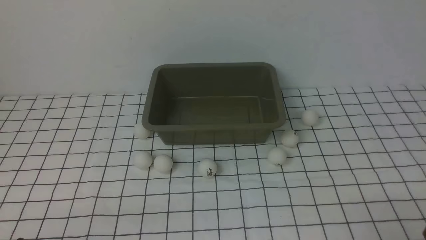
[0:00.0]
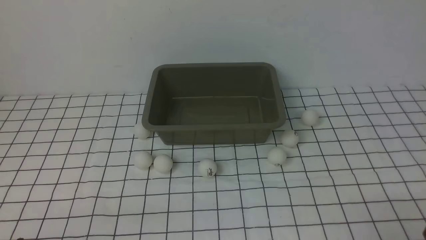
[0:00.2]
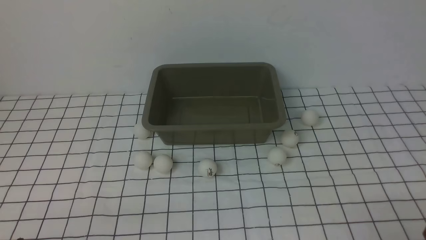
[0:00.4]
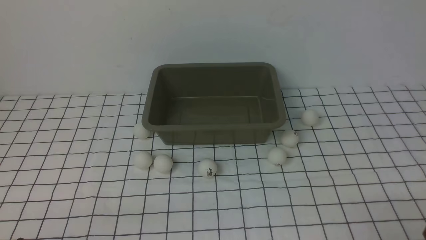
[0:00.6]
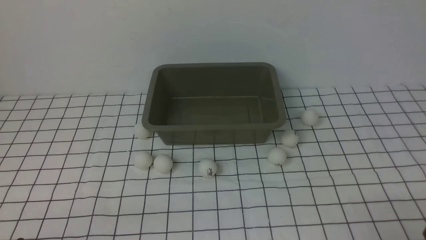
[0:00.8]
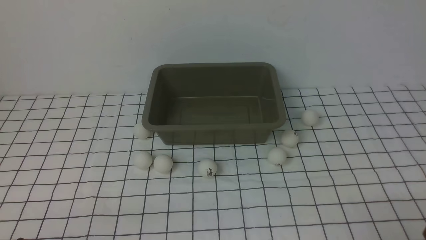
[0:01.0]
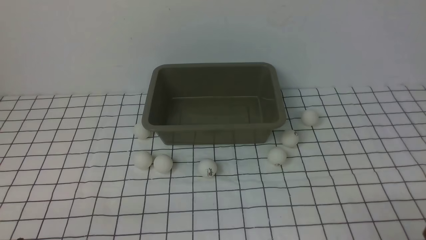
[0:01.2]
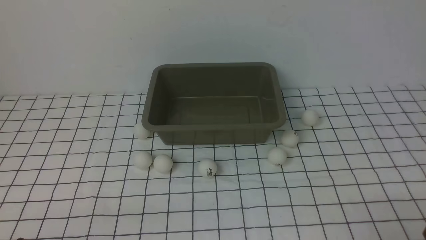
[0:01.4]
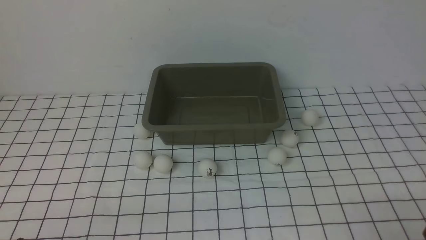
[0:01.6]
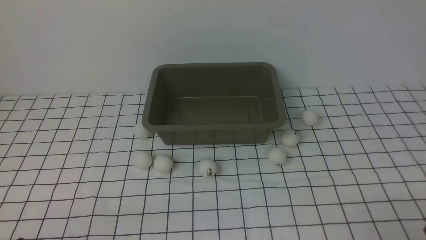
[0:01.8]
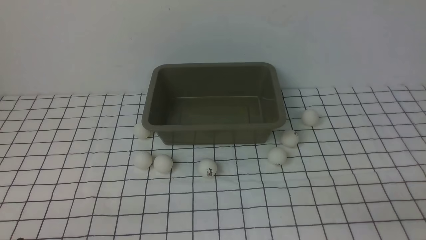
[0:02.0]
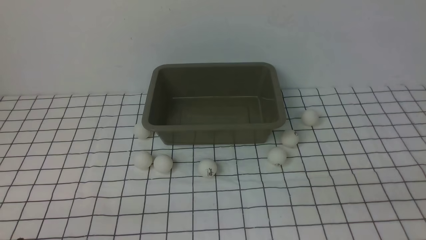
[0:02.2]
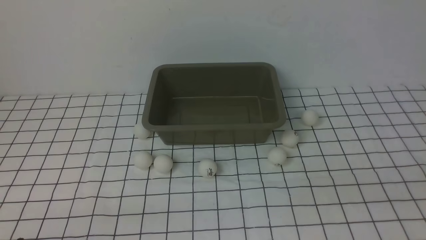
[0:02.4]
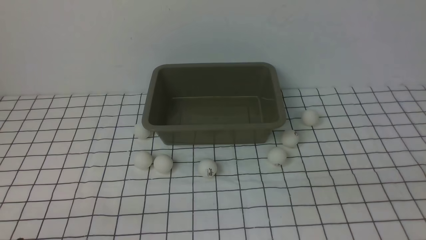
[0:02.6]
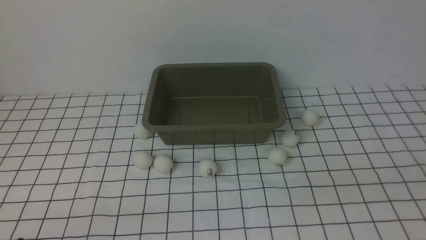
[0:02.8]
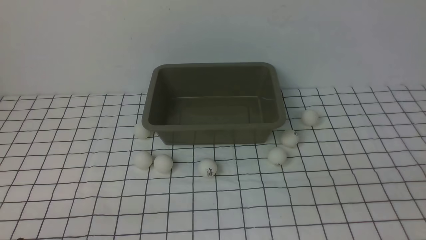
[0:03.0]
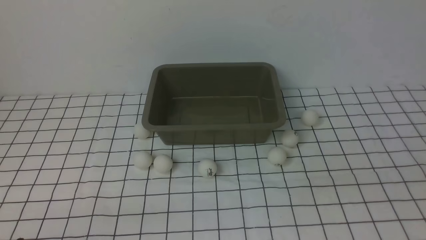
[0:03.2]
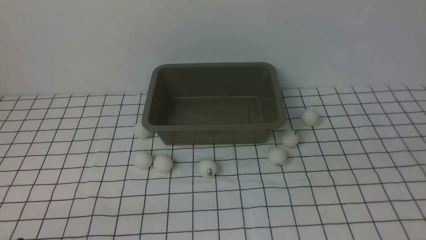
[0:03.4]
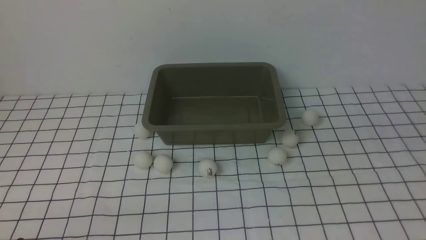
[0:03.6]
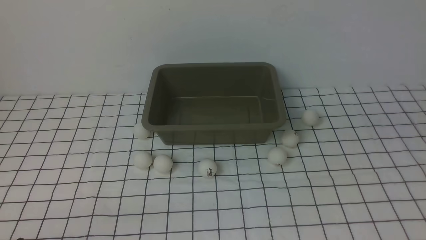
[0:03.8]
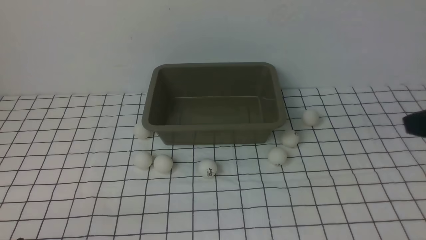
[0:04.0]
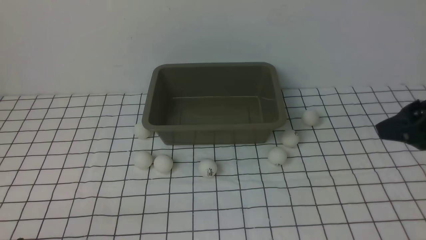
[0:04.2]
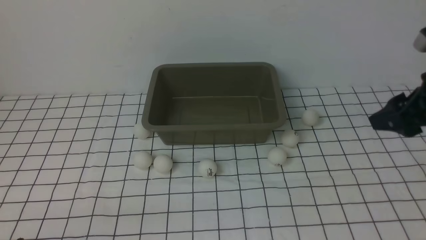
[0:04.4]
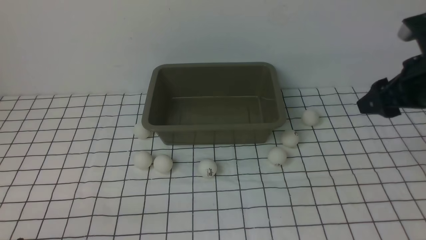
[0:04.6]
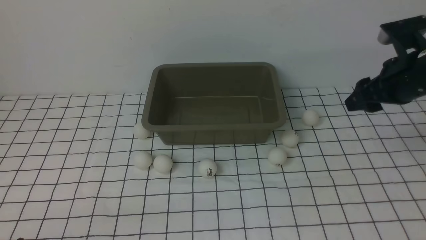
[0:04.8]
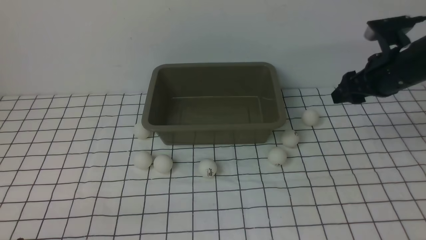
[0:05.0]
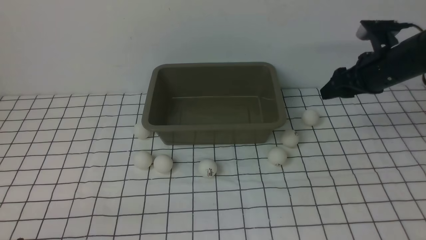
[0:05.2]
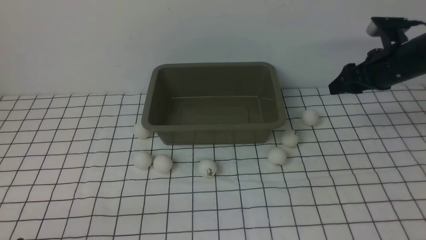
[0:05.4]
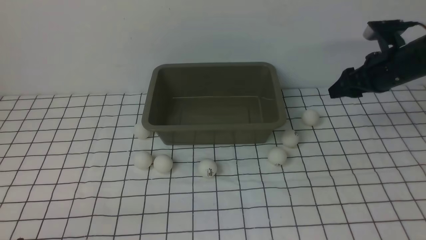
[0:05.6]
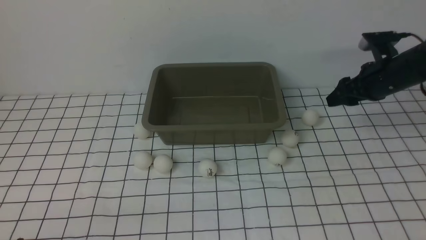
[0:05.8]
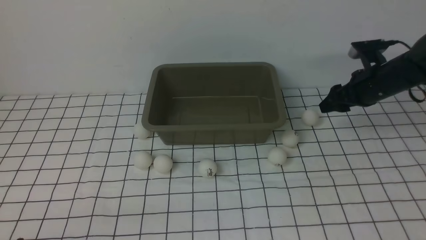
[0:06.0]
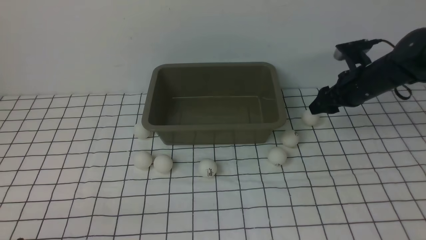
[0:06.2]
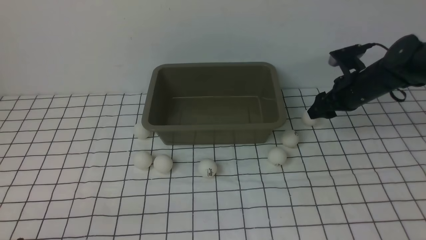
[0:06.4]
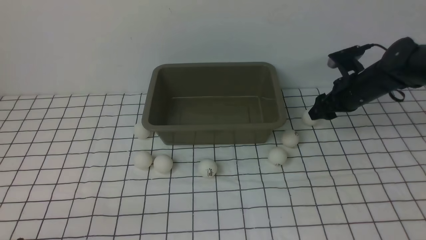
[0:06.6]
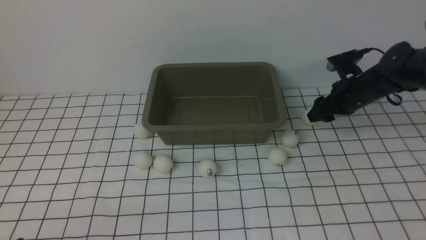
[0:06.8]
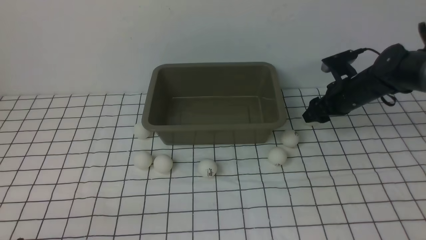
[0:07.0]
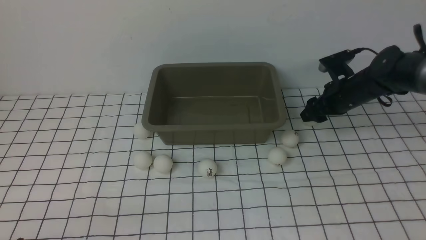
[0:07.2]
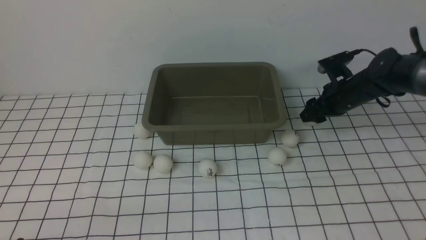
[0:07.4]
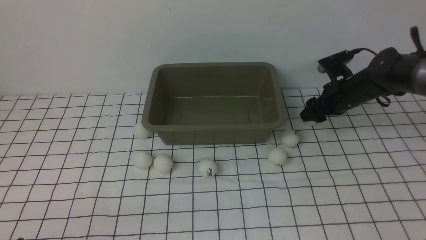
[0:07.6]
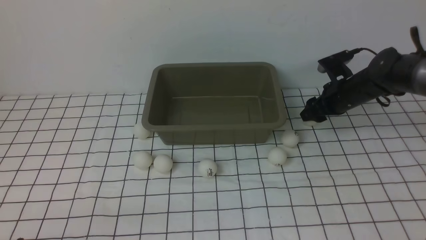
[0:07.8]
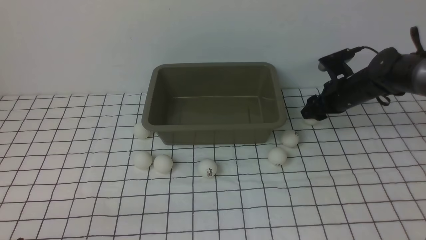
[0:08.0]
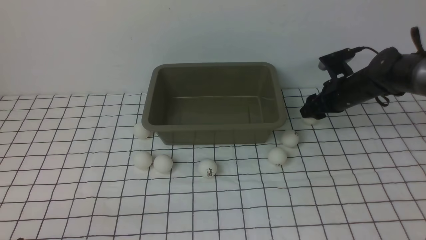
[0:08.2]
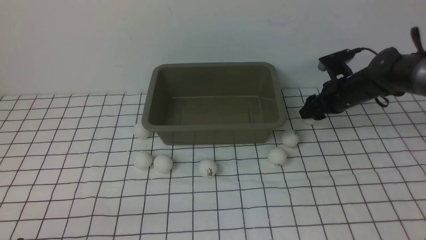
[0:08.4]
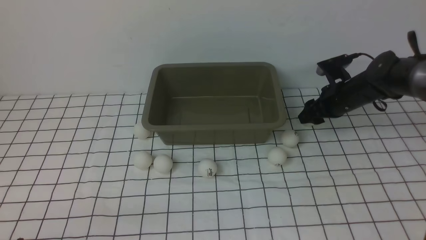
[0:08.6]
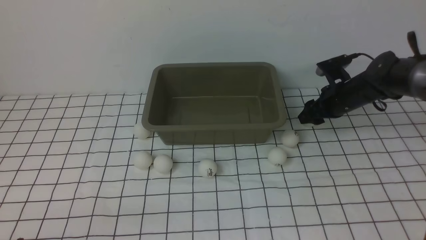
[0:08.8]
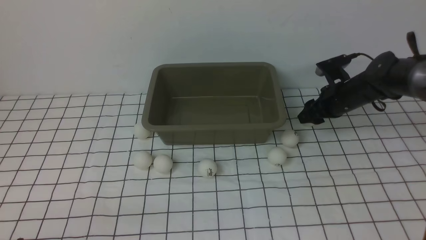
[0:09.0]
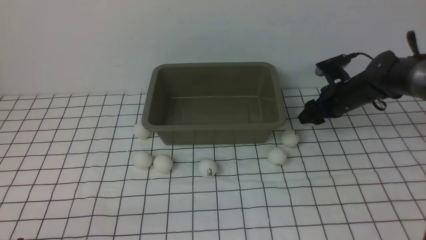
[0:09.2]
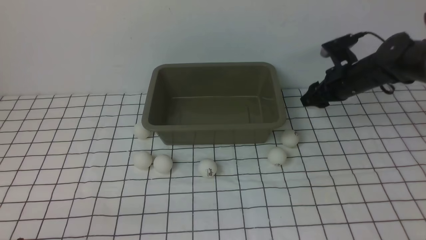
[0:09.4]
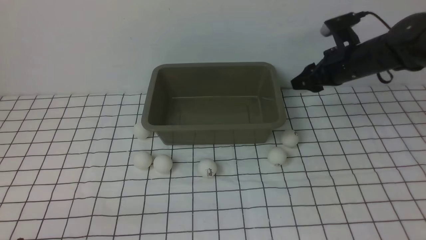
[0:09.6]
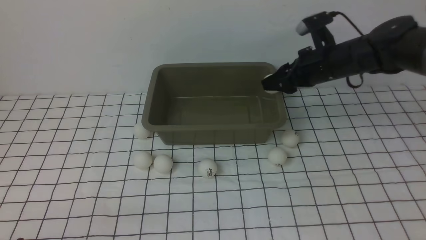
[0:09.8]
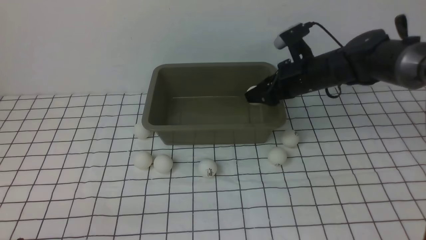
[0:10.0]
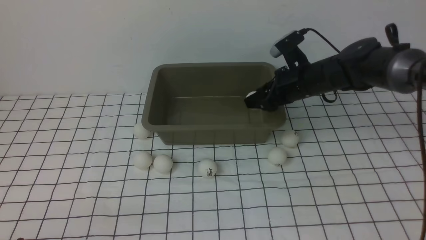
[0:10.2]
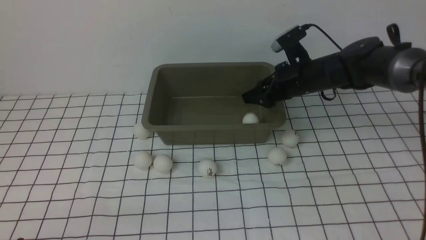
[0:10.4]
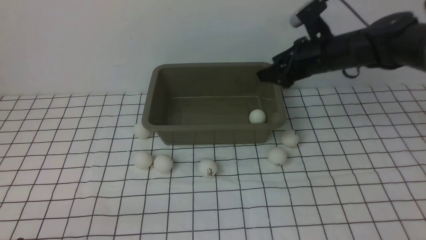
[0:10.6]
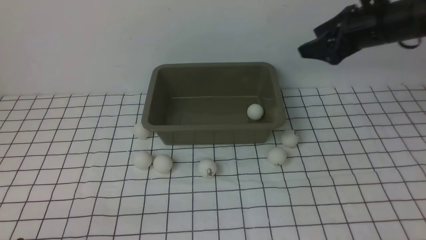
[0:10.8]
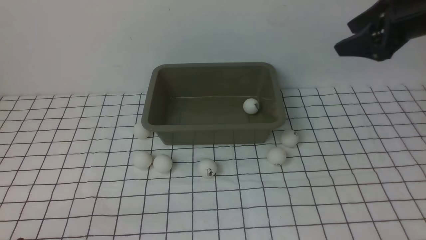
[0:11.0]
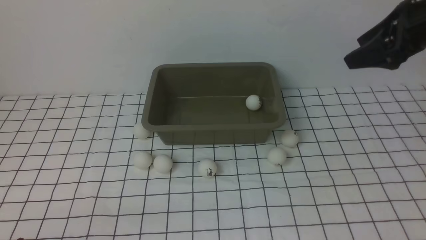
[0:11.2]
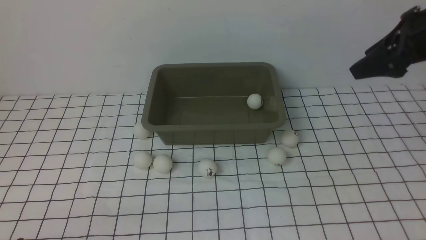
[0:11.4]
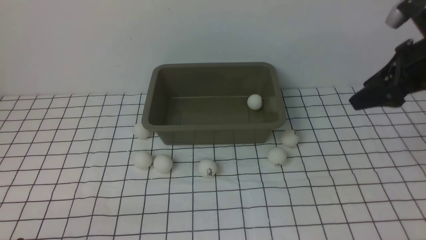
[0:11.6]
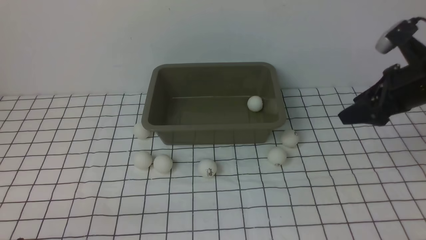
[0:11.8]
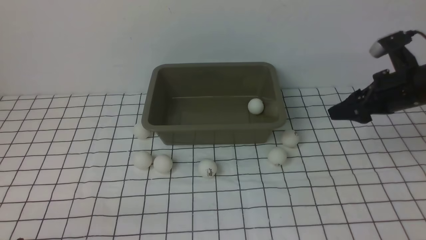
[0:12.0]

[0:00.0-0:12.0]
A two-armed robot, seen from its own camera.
Step, 0:00.0 to 0:09.4: use the right arm to clamp the table tennis ball closest to it.
Step, 0:09.6 to 0:10.4: use the right arm to put the table tennis ball into the box.
0:00.0 to 0:01.6: Both grippers stay about where they are.
0:03.0 to 0:04.4: The right gripper heads forward, covering roughly 25 cm, and closes up.
0:04.4 to 0:06.0: The right gripper is displaced forward and downward by approximately 20 cm.
0:06.0 to 0:07.6: The right gripper is displaced downward by about 5 cm.
0:07.6 to 0:09.0: Both grippers stay about where they are.
0:09.0 to 0:10.4: The right gripper is displaced upward and to the left by approximately 10 cm, and opens.
0:10.4 to 0:12.0: The right gripper is displaced to the right and backward by some 10 cm, and travels upward and back again, about 10 cm each way.

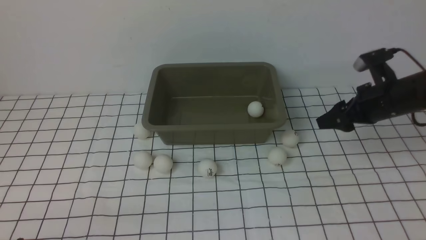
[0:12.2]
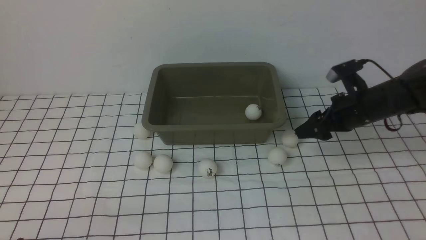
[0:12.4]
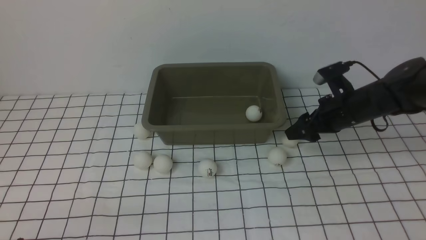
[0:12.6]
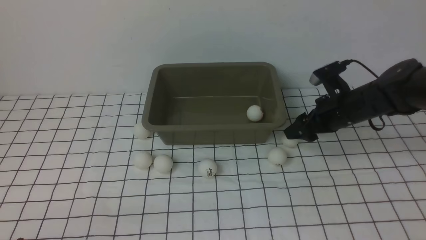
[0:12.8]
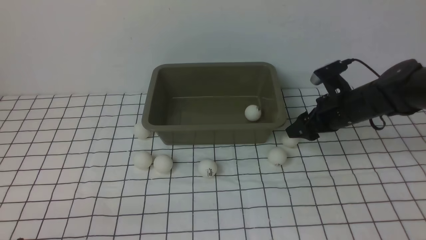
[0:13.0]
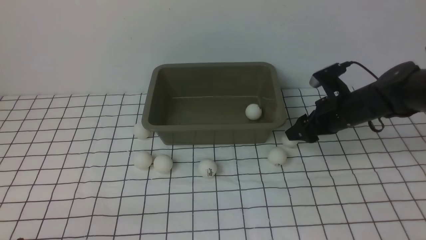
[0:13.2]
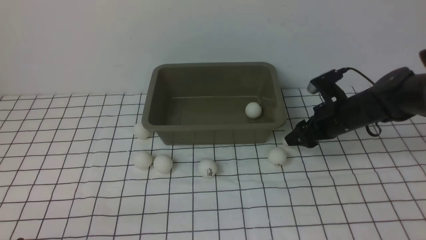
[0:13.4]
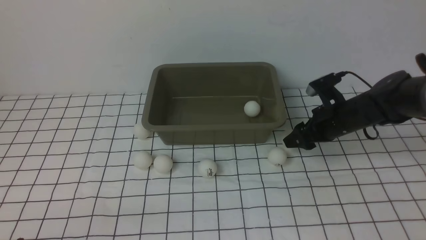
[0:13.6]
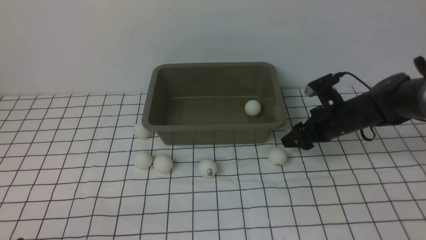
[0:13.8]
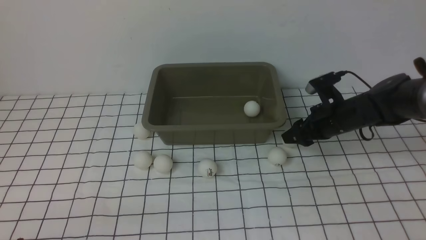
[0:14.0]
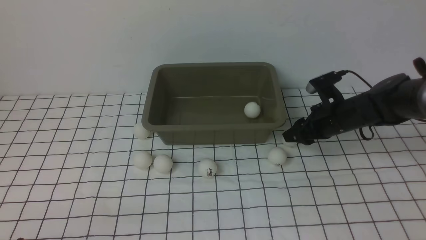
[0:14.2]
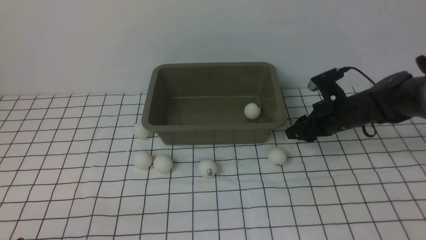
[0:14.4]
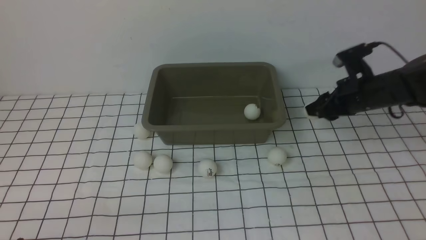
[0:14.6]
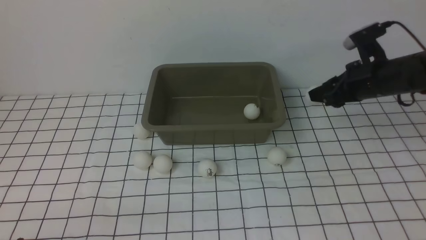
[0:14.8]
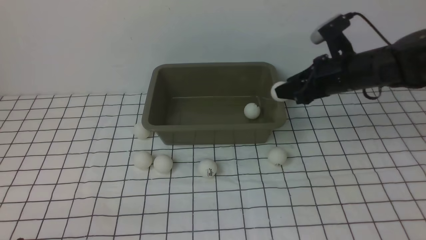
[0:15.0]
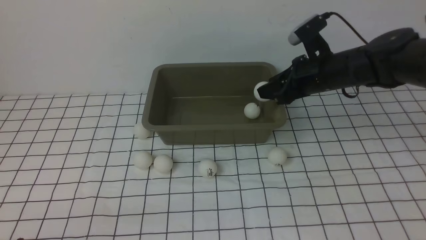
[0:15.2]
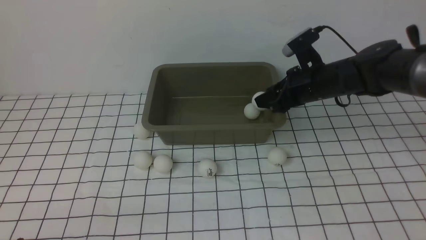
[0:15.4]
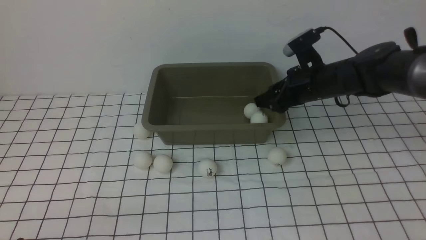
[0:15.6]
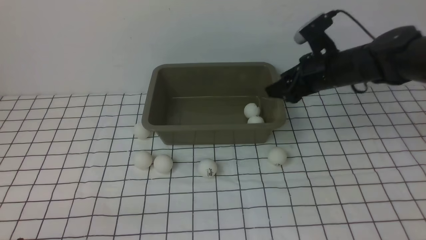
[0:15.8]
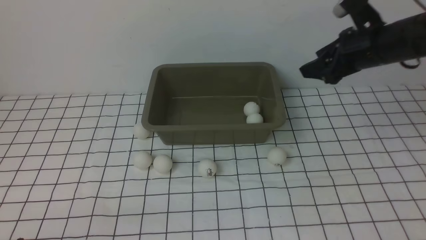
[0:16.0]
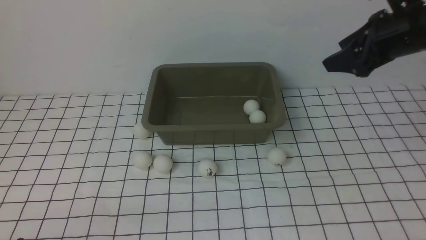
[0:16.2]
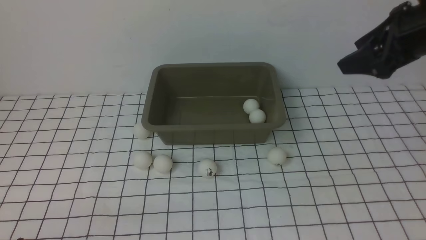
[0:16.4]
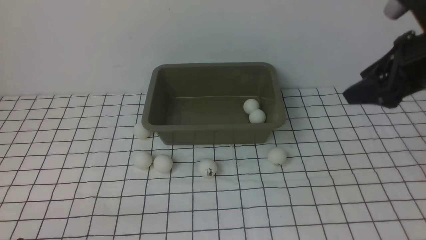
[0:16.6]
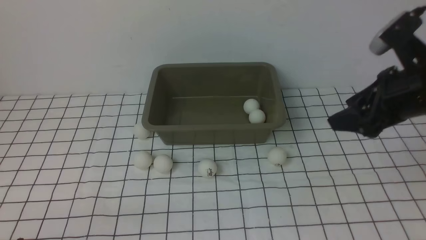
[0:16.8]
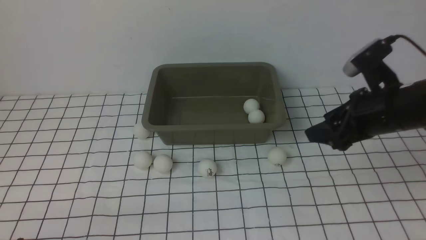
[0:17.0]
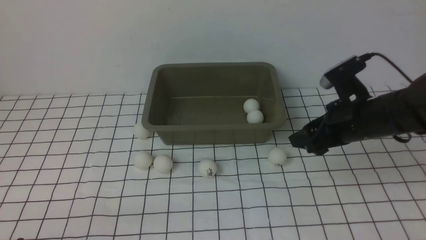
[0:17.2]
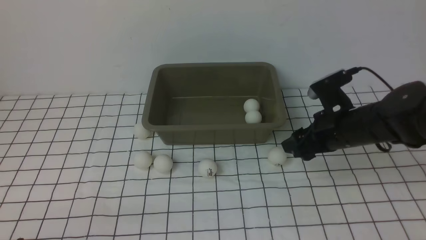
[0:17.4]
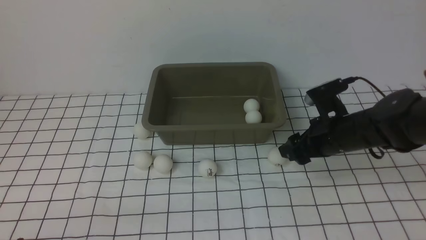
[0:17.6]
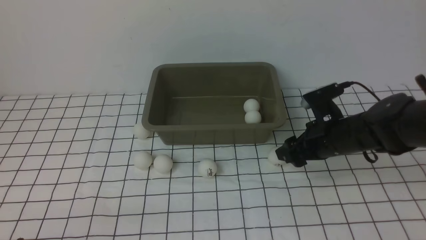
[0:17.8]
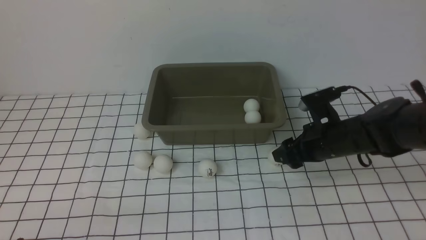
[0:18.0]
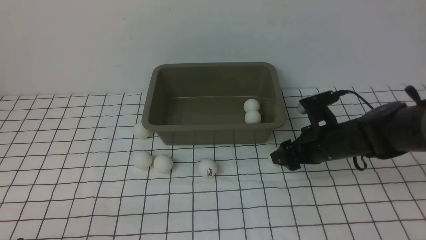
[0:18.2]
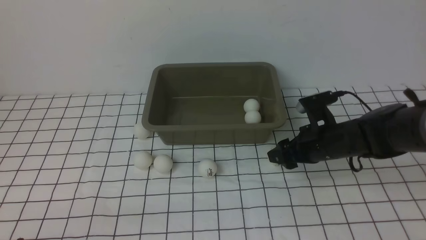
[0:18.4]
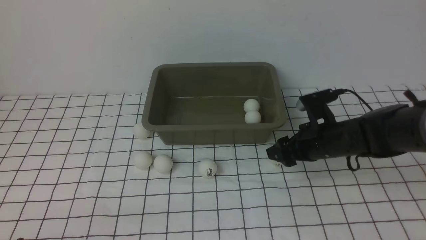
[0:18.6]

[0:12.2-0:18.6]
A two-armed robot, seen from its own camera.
Step, 0:12.2 to 0:14.6: use the right arm to clamp the table tennis ball closest to it.
Step, 0:14.8 to 0:15.4: use the right arm to put the table tennis ball into the box.
0:12.2 to 0:13.8: The right gripper ends up approximately 5 cm from where it was.
0:13.8 to 0:15.4: The right gripper moves upward, approximately 10 cm, and closes.
0:15.4 to 0:17.0: The right gripper shifts approximately 15 cm backward and to the right, travels upward and back again, roughly 15 cm each way, and opens up.
0:17.0 to 0:18.6: The right gripper heads downward, covering some 10 cm.
